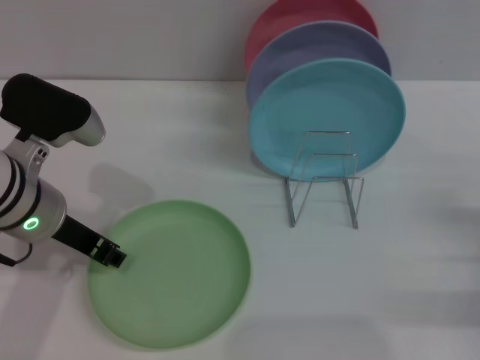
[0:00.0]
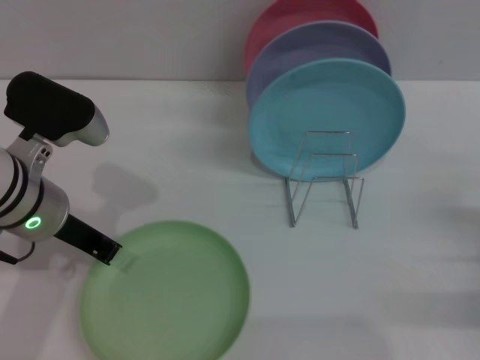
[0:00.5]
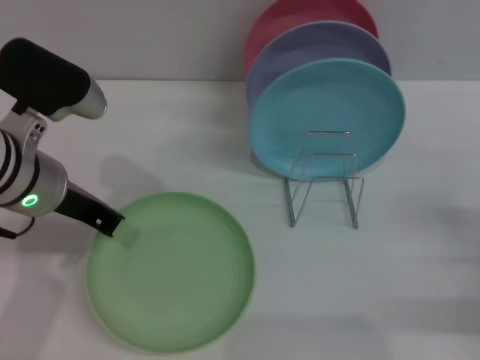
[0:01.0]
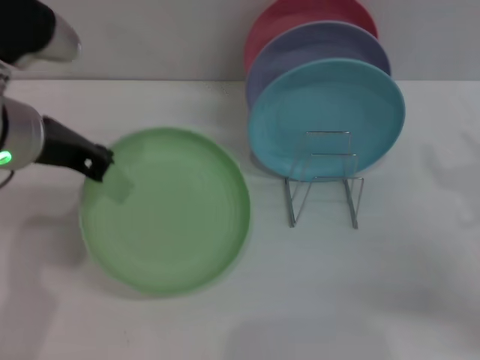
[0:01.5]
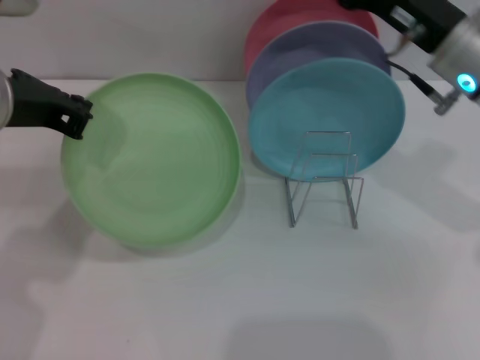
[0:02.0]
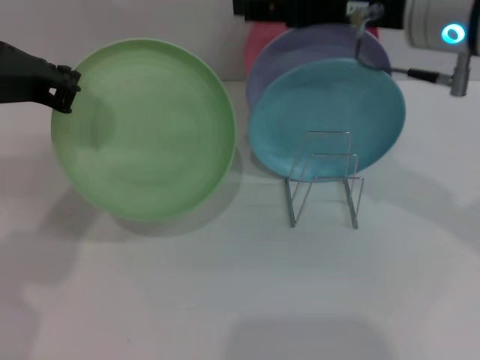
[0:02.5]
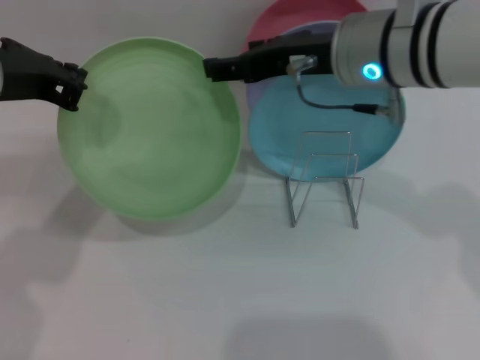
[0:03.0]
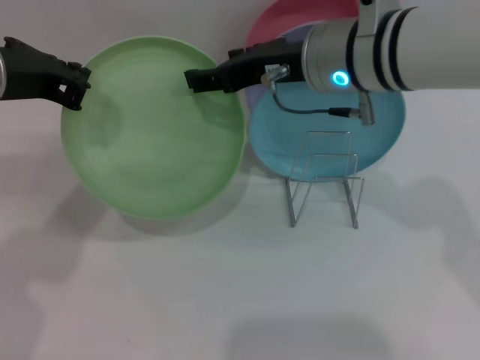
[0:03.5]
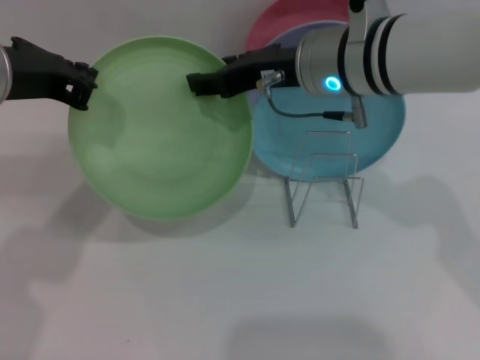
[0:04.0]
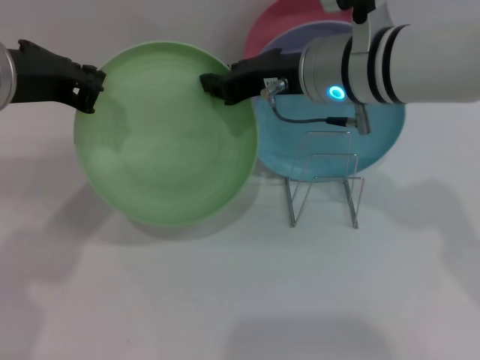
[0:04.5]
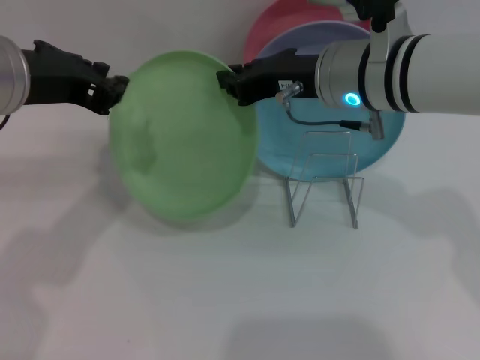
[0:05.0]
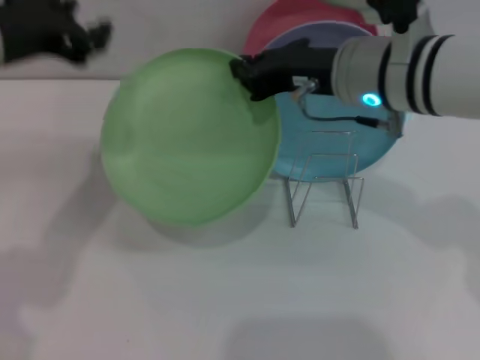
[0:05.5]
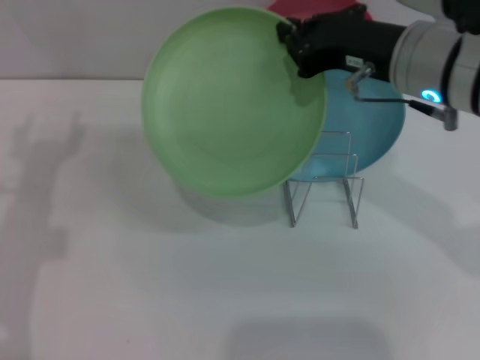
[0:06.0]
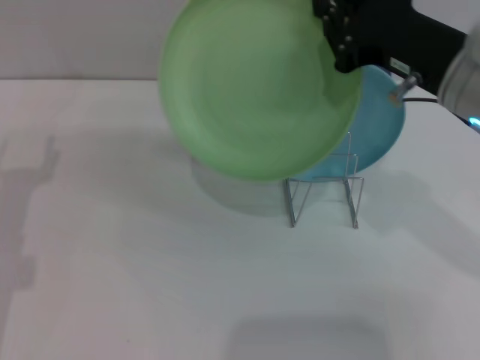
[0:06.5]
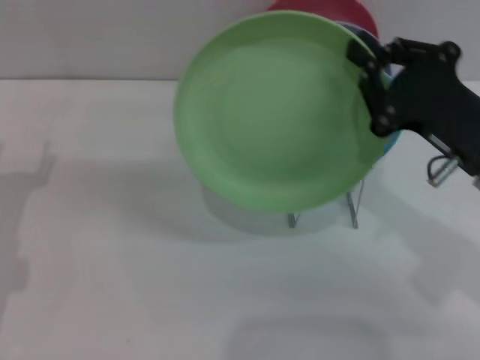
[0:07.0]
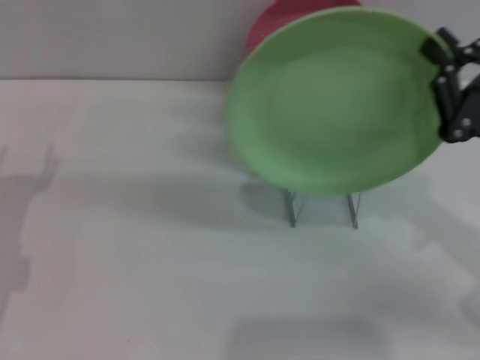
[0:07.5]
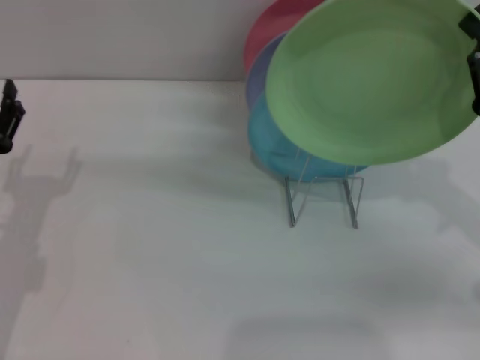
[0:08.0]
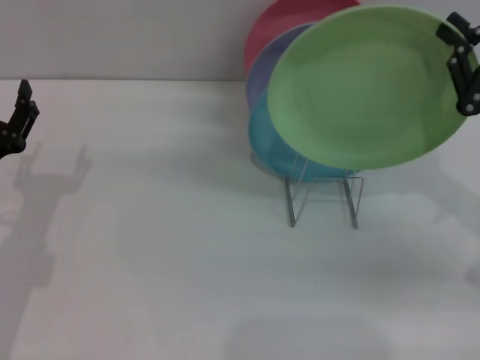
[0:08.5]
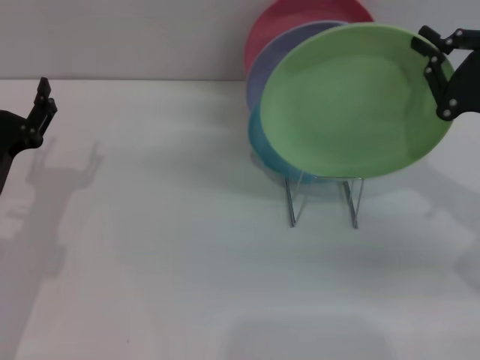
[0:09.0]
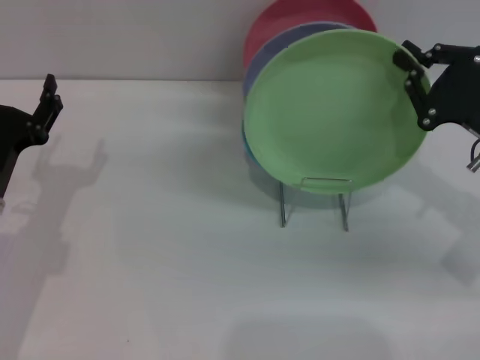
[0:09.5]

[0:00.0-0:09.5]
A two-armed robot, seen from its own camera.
Task of the whole recording: Grip the plate with one hand, pass it to the other, then set it on the shelf.
Step, 0:01.5 to 0:05.5: Pass the plate from the left gripper to the right gripper.
0:00.0 to 0:02.0: The left gripper goes approximately 10 cm upward, and closes up. Meanwhile the right gripper travels upward, to the left and forward by some 25 cm.
0:02.0 to 0:04.0: The right gripper moves to the left, approximately 10 cm.
0:04.0 to 0:05.5: The right gripper closes its fingers. The left gripper opens its fingers.
0:05.5 to 0:07.5: The left gripper moves downward and to the left, roughly 25 cm, and opens. Meanwhile the right gripper travels to the right, backward and downward by roughly 20 cm.
0:07.5 to 0:09.5: The right gripper is displaced forward by approximately 5 cm.

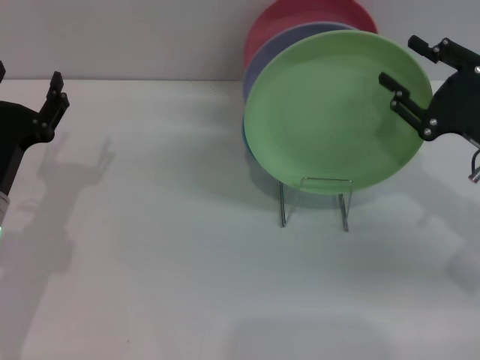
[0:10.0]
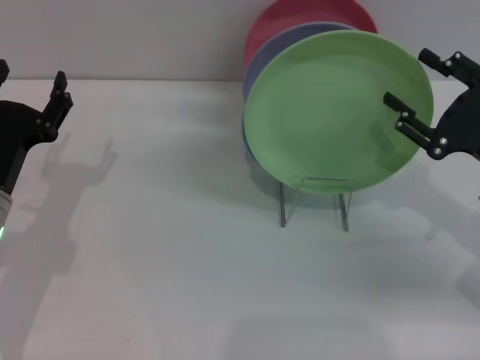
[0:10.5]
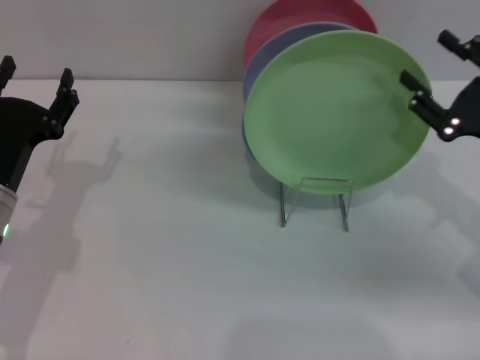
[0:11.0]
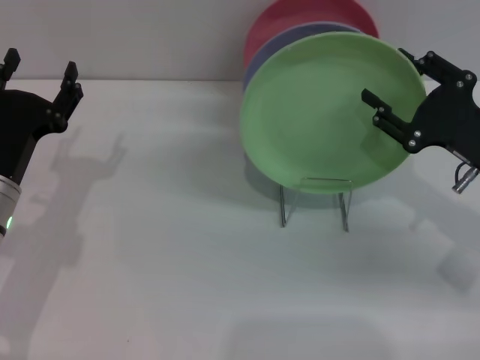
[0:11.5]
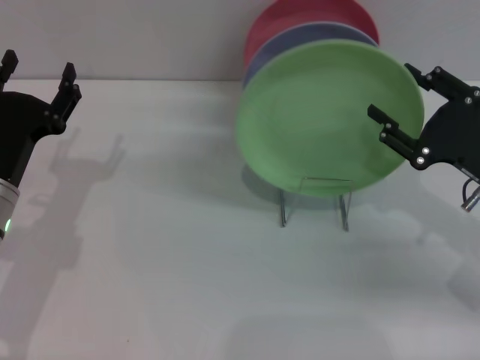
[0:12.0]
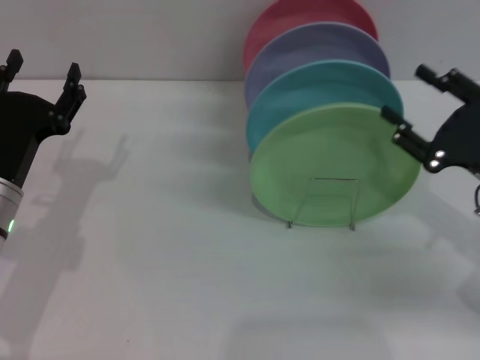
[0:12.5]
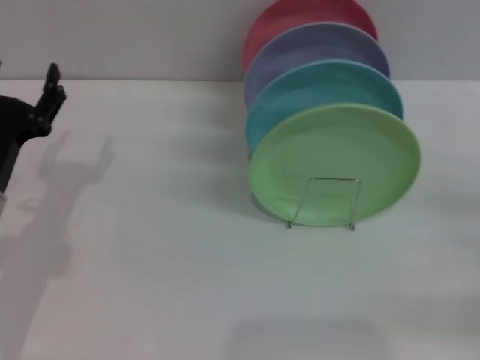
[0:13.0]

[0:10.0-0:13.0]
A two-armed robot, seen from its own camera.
Task of the whole recording: Grip the plate with one hand, pass it to the other, then set it on the shelf.
Step, 0:10.0 to 0:12.0: Place the plate on the shelf with the right gripper.
0:10.0 to 0:11.5: The grippers make only small movements.
0:11.5 to 0:13.0: The right gripper moves to the right and backward, some 15 cm.
